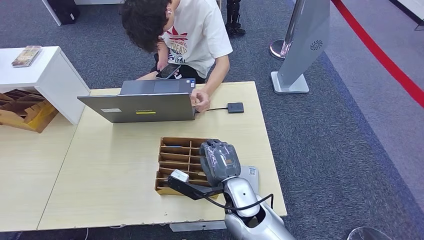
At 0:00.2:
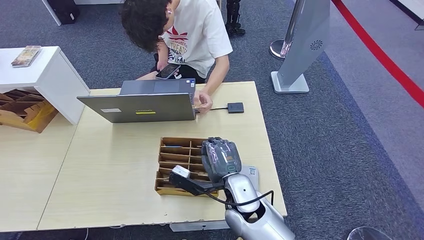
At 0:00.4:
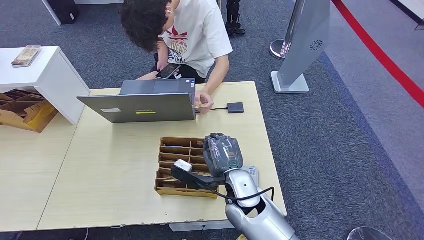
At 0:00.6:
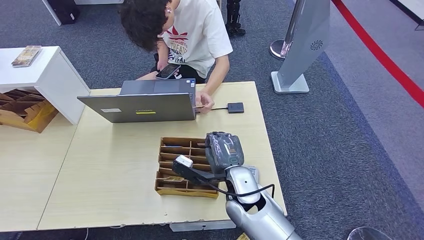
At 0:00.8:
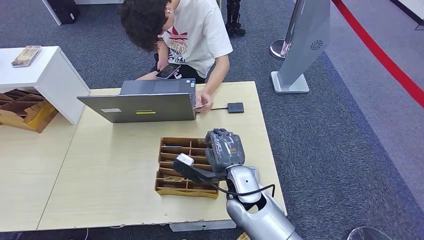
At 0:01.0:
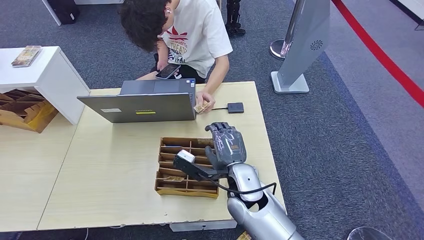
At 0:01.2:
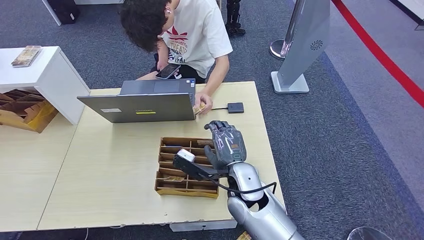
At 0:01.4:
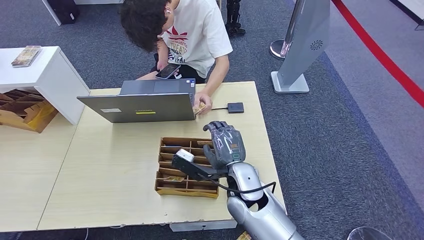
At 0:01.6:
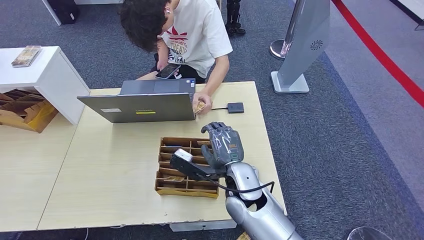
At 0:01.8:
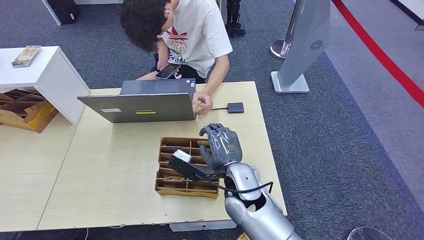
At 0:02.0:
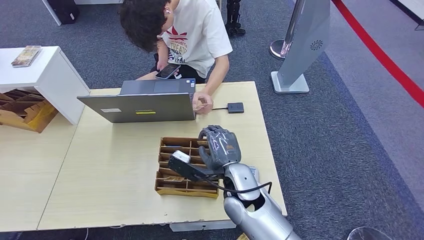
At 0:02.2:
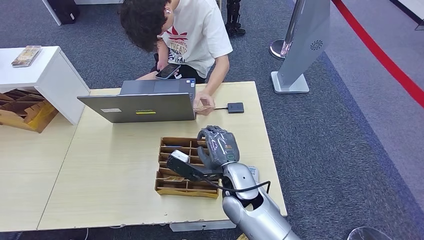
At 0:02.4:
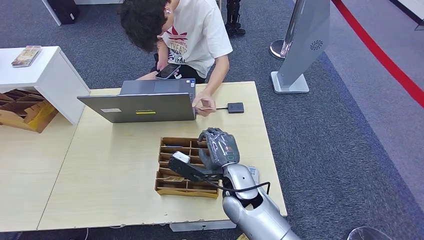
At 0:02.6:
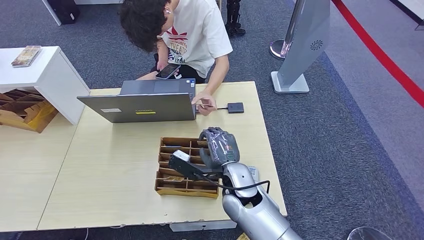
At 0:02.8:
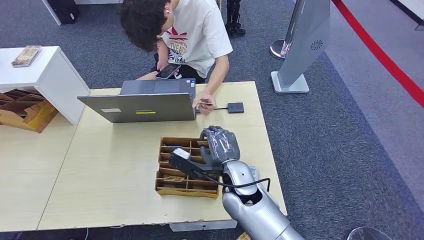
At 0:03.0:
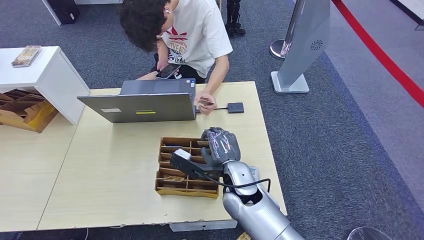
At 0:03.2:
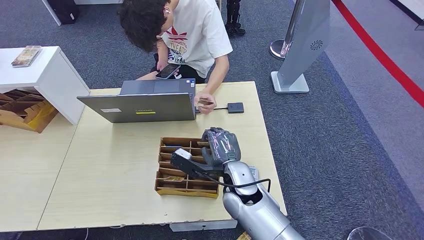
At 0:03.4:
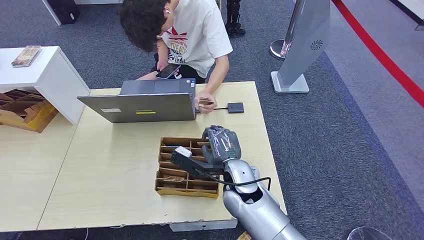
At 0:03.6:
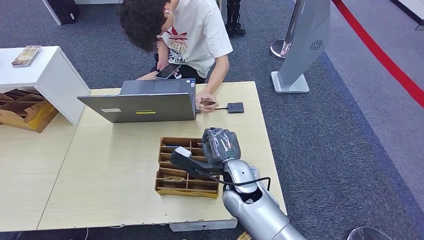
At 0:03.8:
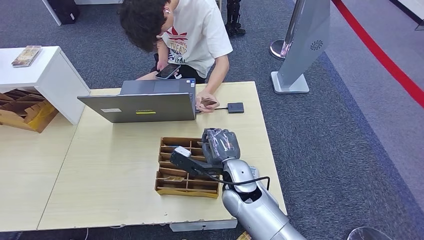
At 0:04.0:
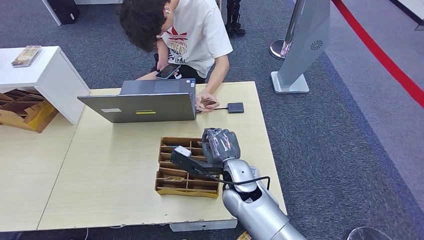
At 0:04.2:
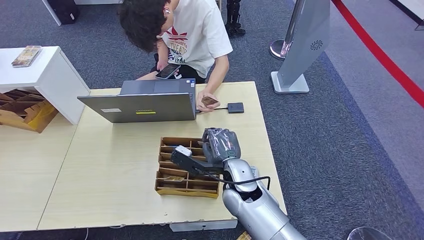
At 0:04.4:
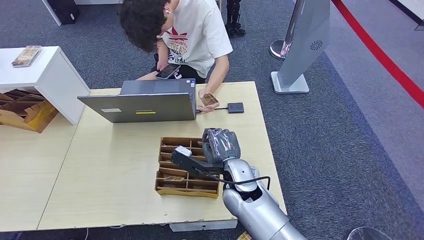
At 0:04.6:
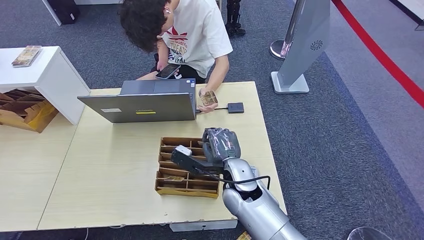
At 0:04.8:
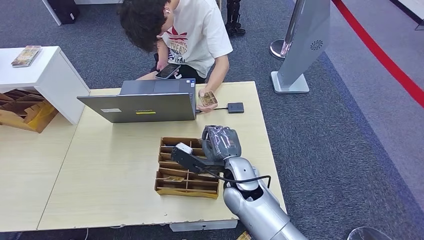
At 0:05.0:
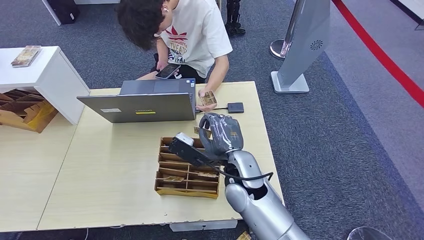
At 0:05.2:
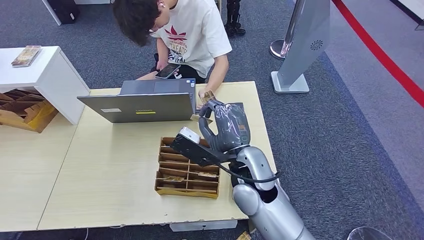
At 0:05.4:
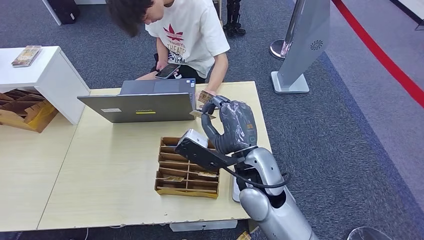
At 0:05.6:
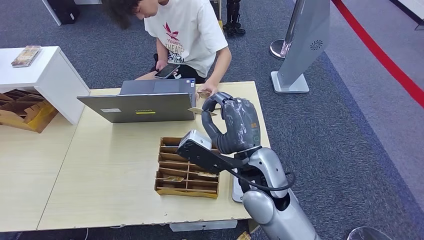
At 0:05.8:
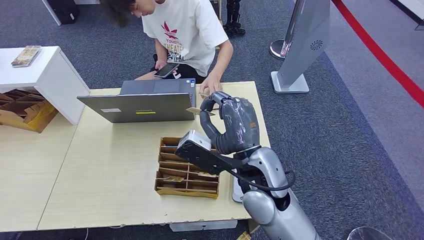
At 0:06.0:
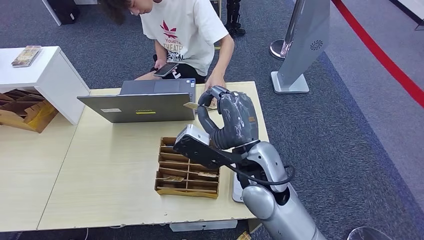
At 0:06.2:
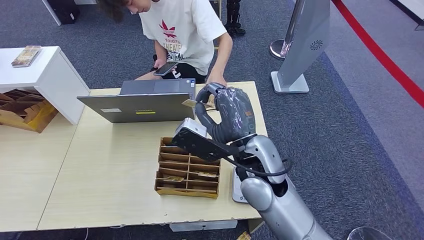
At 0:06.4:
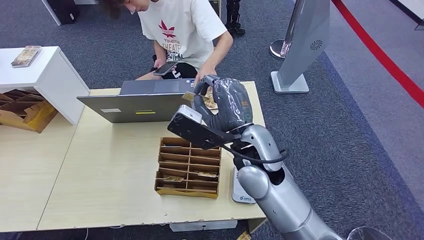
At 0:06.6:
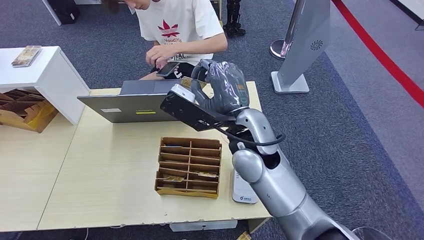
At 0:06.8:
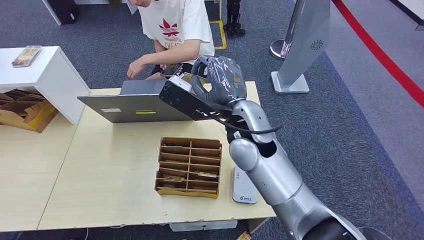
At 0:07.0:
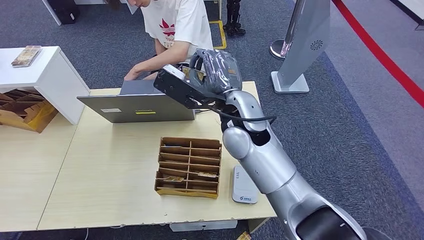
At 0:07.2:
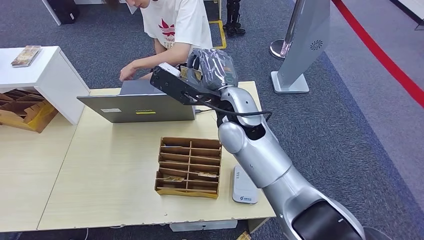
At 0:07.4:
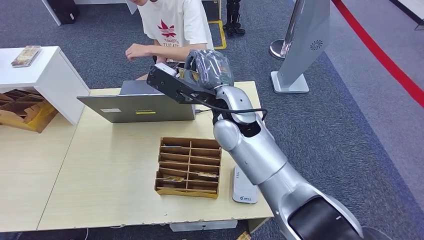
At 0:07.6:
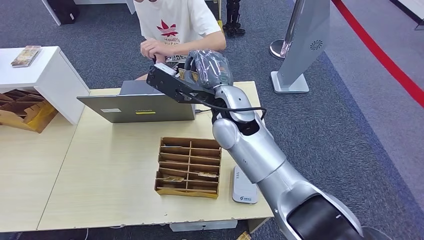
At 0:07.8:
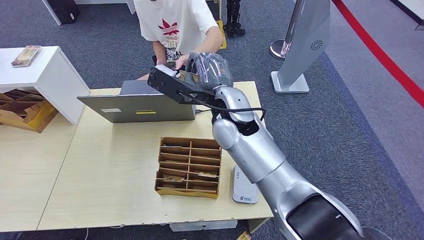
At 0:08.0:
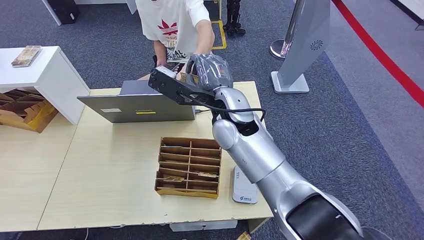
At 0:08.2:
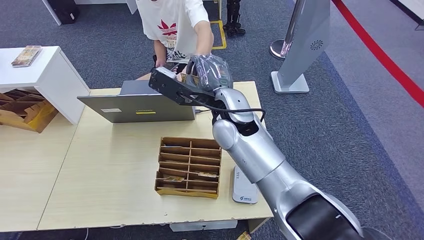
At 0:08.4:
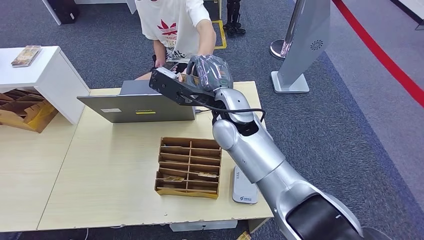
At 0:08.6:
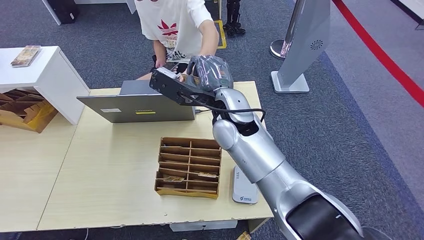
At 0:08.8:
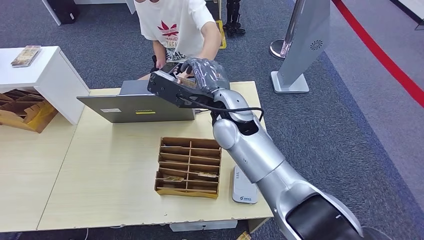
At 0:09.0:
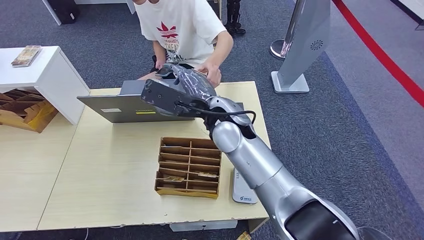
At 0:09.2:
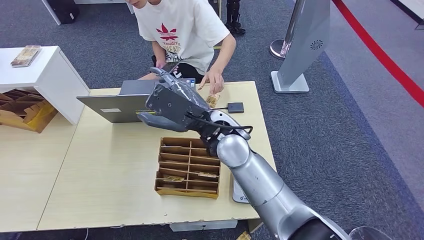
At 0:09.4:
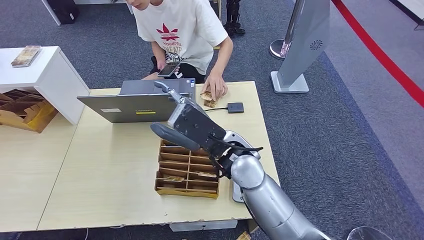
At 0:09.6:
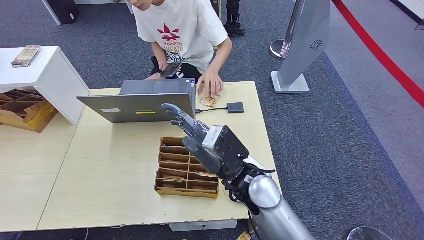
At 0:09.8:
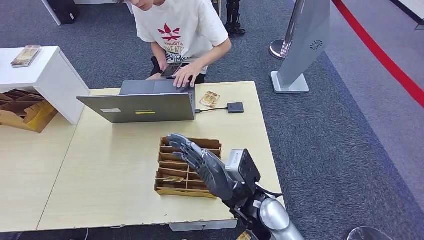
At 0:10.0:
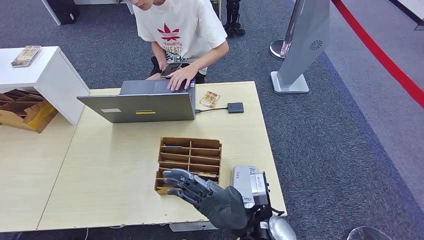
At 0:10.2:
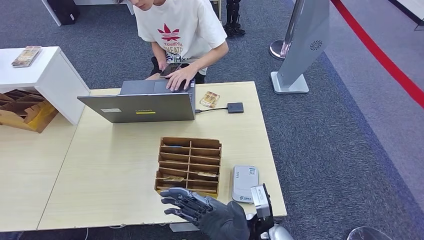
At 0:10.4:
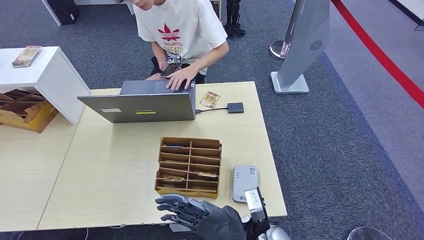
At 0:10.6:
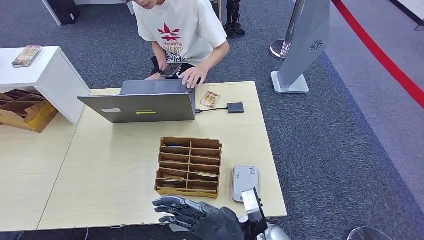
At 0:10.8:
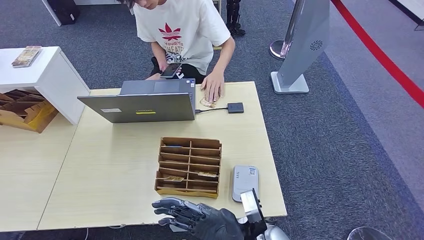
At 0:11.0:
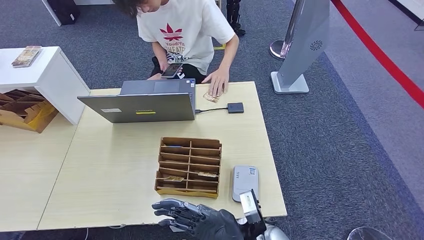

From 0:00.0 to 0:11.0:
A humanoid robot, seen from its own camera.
Step, from 0:00.0 to 0:05.0: Pick up the room key from the key card box.
Step, from 0:05.2 to 0:10.8: Hand the room key to the person.
From 0:00.0 to 0:03.2: The hands move only a little.
From 0:03.2 to 0:04.8: The two hands keep their place.
From 0:04.8 to 0:06.2: The right hand moves upward, roughly 10 cm.
From 0:06.2 to 0:07.8: The right hand travels forward by roughly 10 cm.
From 0:07.8 to 0:09.4: The right hand is displaced backward and downward by about 10 cm.
From 0:09.4 to 0:11.0: The right hand is displaced downward and backward by some 20 cm.
